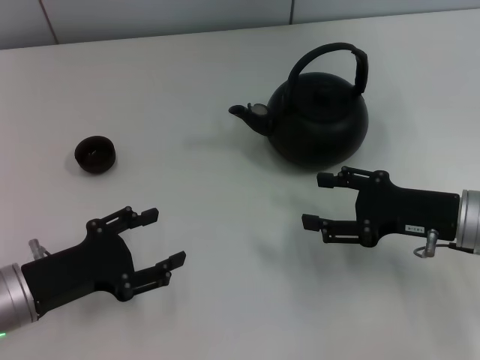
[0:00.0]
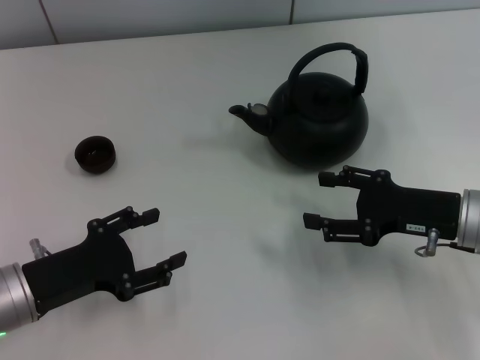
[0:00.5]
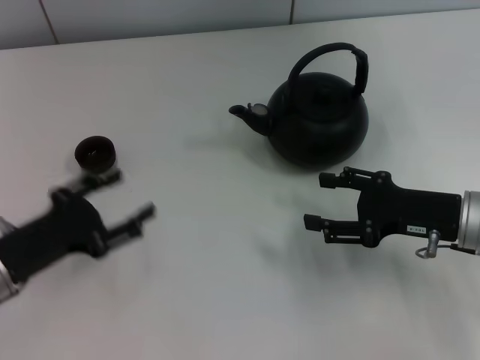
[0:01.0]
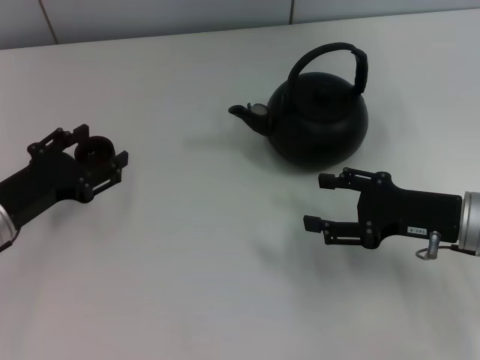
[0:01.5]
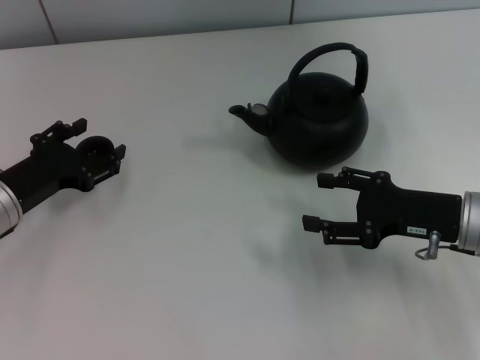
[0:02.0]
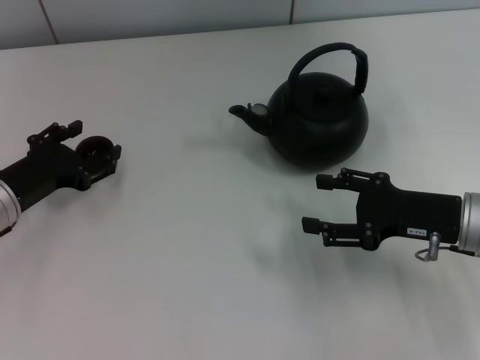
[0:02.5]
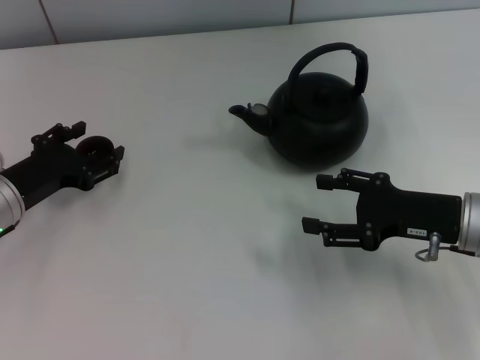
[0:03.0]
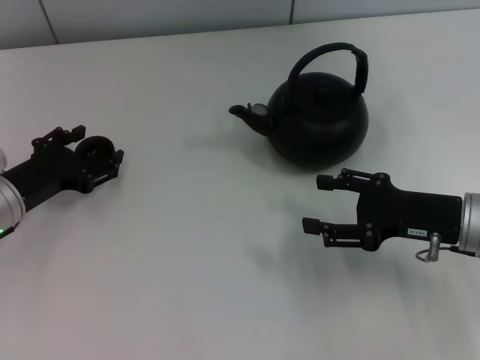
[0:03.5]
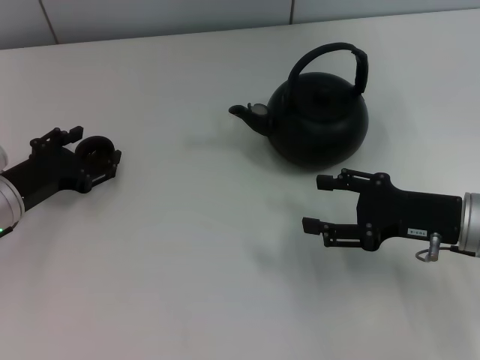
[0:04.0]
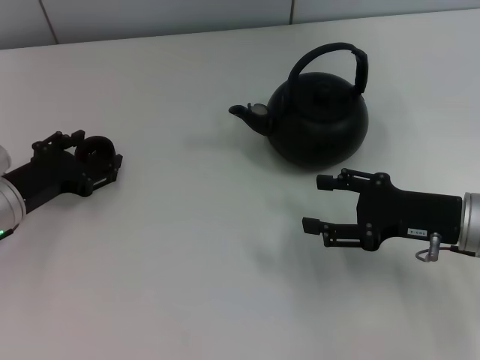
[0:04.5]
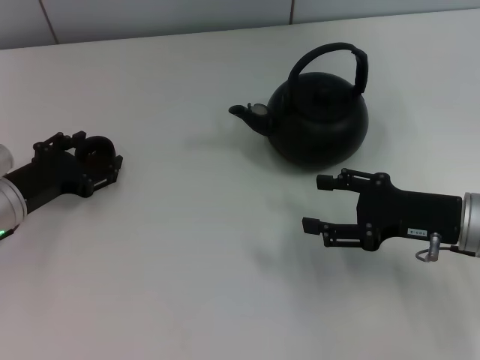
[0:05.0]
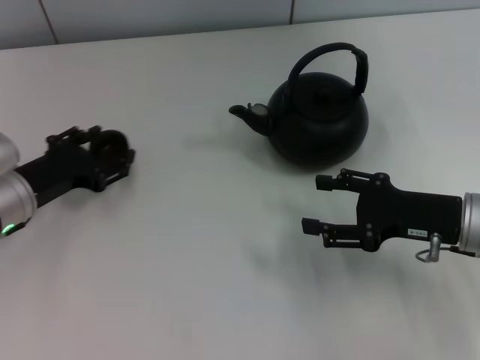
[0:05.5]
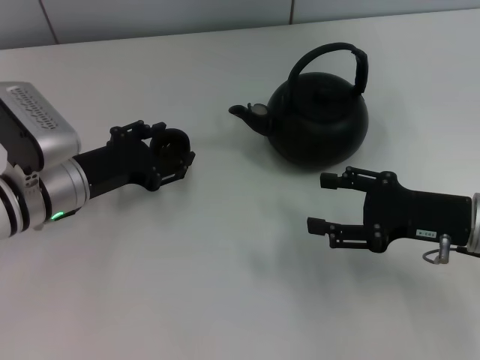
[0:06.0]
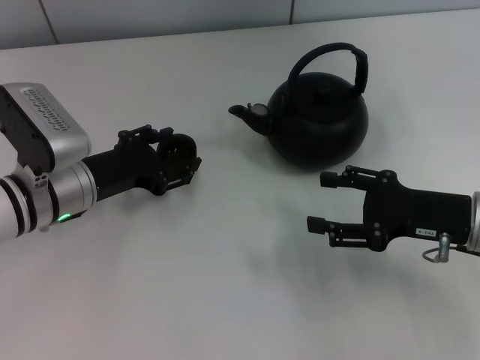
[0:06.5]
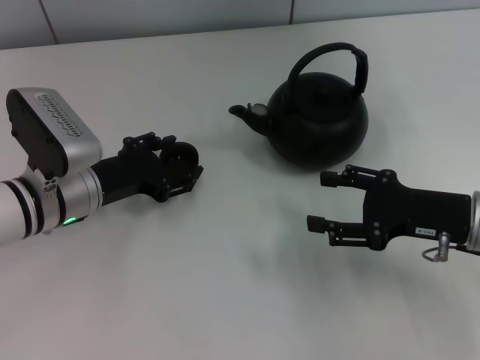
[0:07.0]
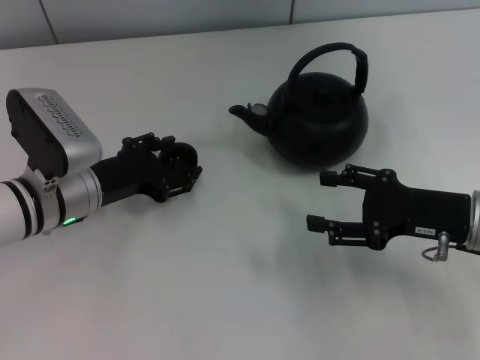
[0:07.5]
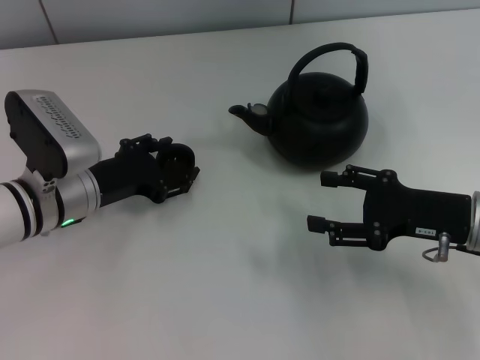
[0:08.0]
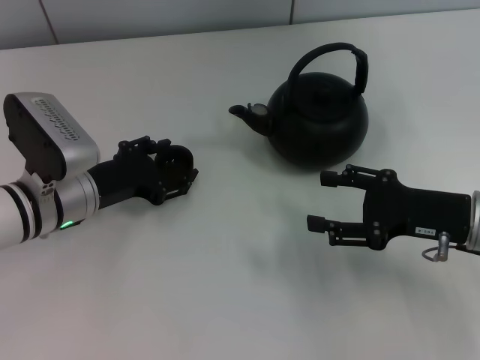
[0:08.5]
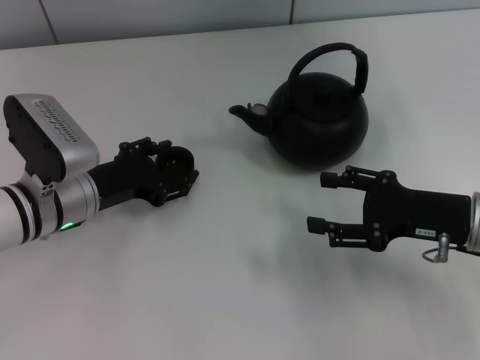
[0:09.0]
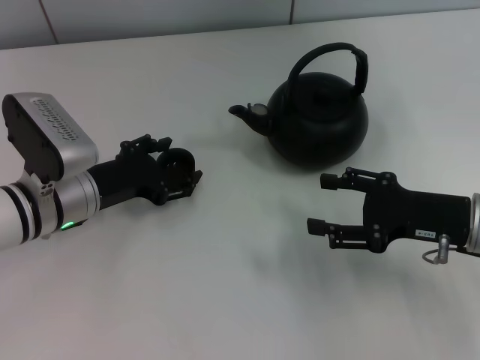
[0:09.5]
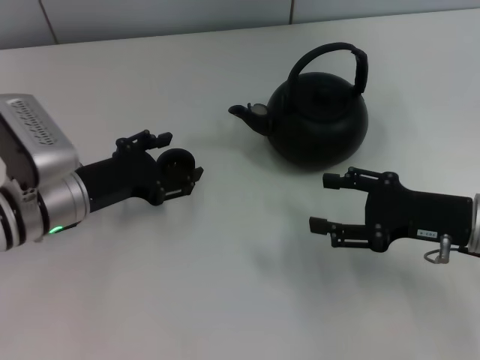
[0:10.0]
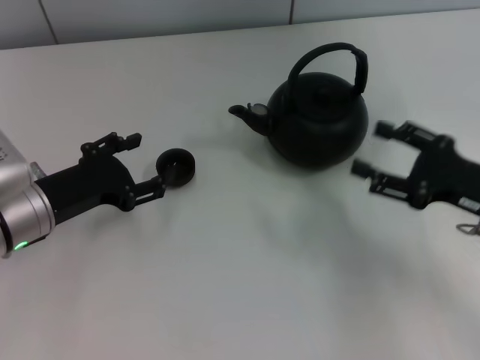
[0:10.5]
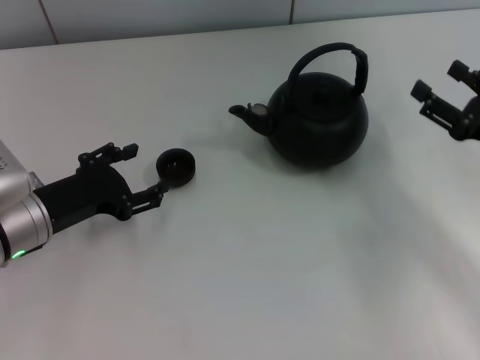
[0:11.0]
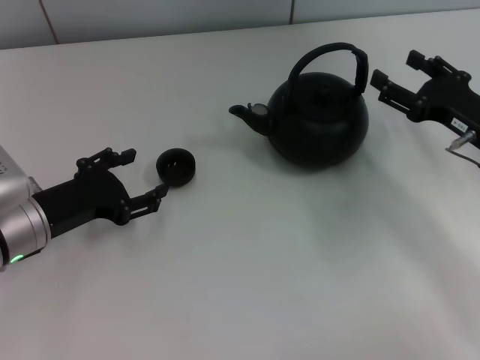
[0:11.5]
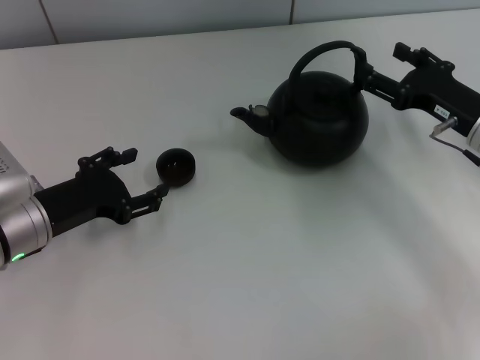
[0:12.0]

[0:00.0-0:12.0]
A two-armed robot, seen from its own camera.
Task of the whole recording: Grasp the handle of the teapot with one hand and pour tea into the teacup.
Step, 0:00.0 to 0:05.5: Pick up the teacup with the left gripper.
Step, 0:06.0 to 0:10.0: Place the teacup in the center of view with the left gripper.
0:00.0 to 0:02.0: The left gripper heads forward, covering approximately 10 cm.
0:02.0 to 0:04.0: The grippers move only a little.
0:04.0 to 0:06.0: The left gripper shifts some 5 cm to the right.
0:06.0 to 0:08.0: The two grippers keep their place.
0:08.0 to 0:10.0: There are only small adjustments of the grippers.
0:10.0 to 0:12.0: The right gripper moves forward, some 5 cm.

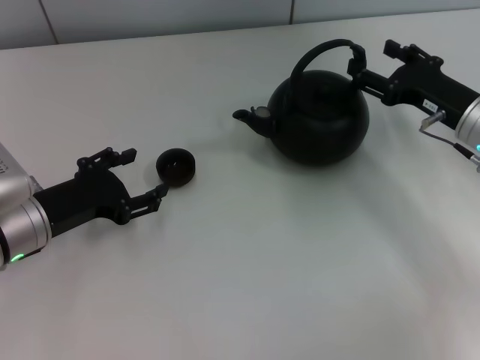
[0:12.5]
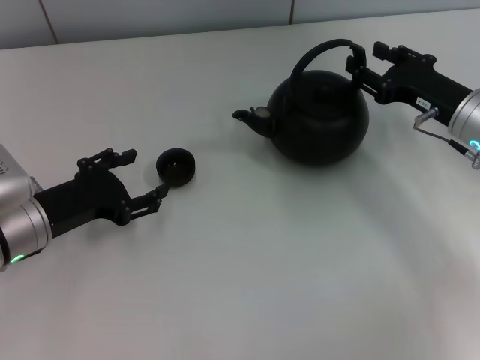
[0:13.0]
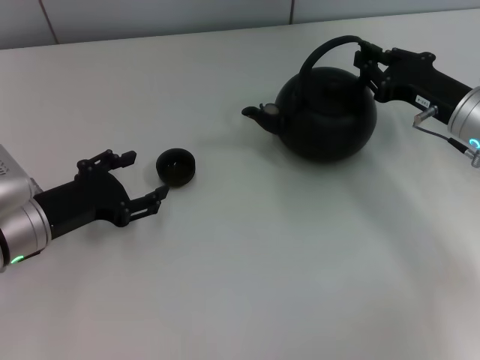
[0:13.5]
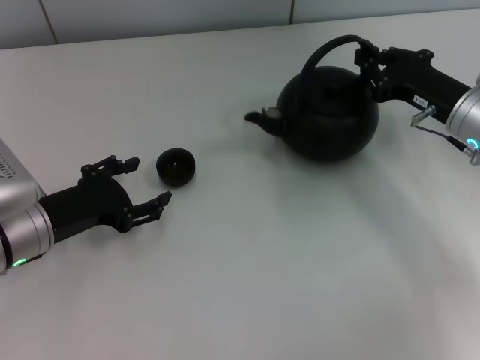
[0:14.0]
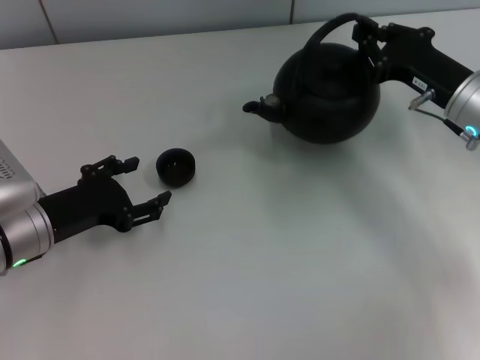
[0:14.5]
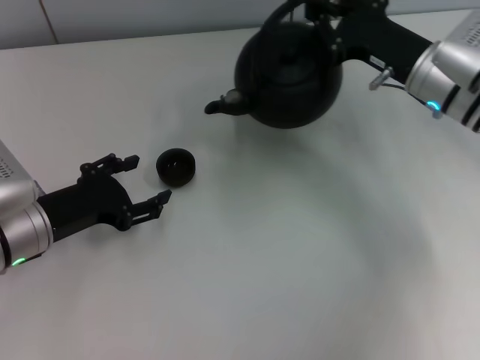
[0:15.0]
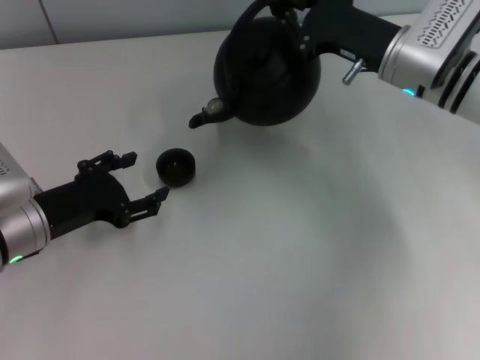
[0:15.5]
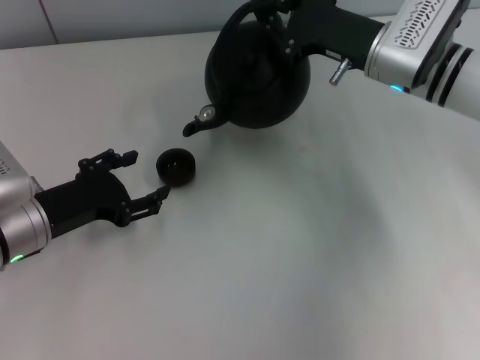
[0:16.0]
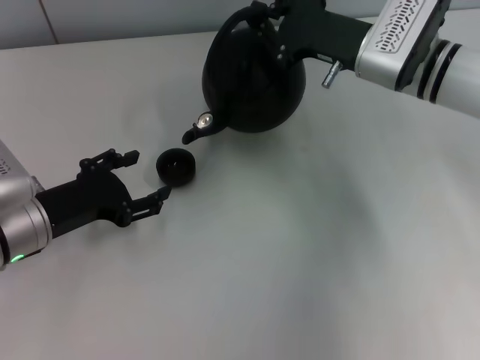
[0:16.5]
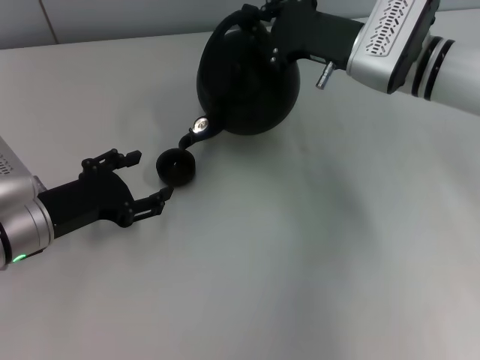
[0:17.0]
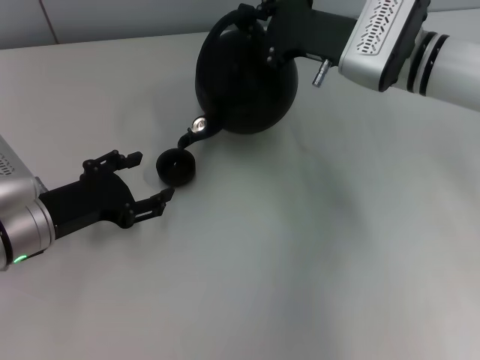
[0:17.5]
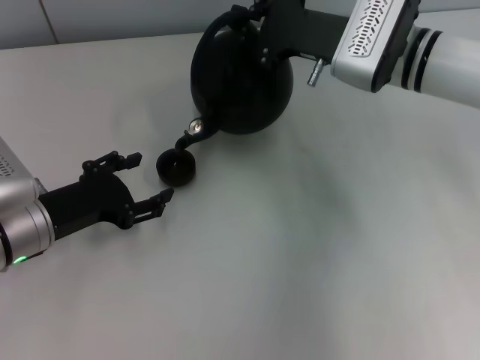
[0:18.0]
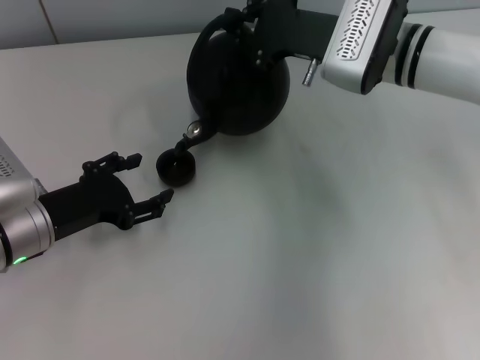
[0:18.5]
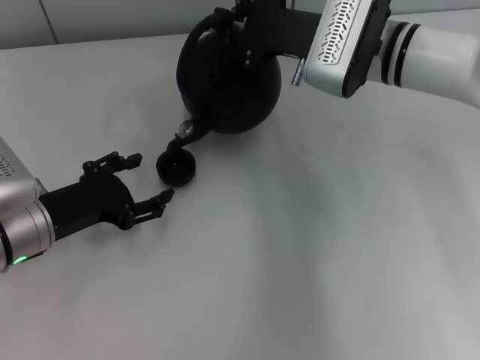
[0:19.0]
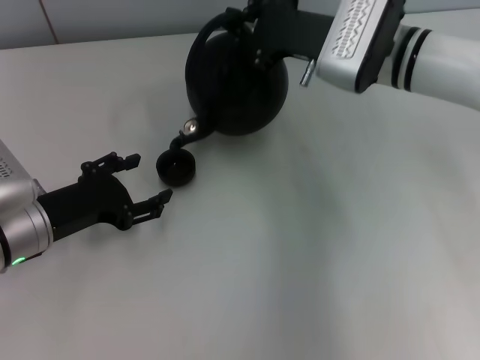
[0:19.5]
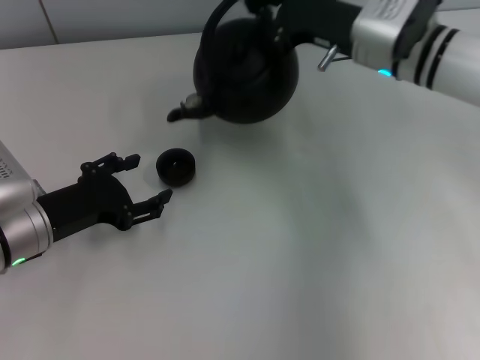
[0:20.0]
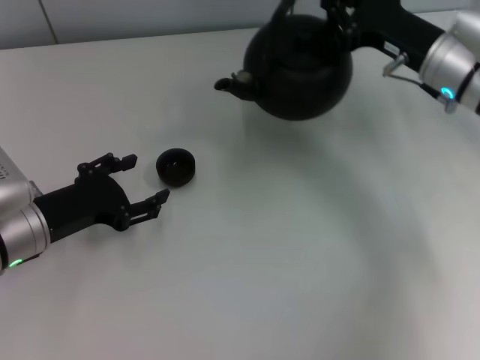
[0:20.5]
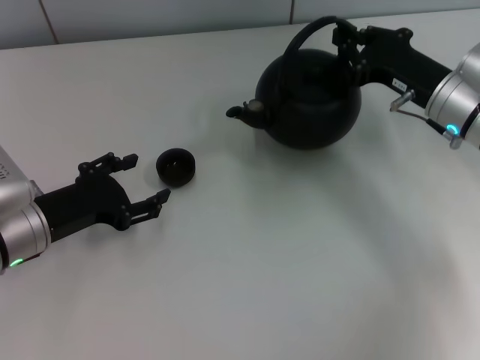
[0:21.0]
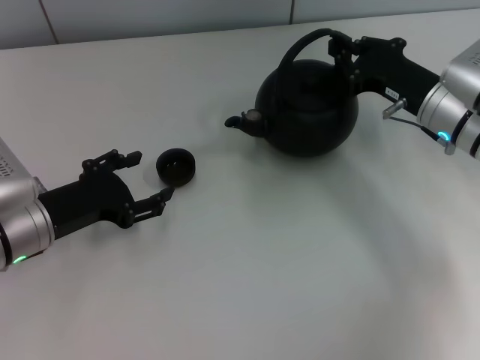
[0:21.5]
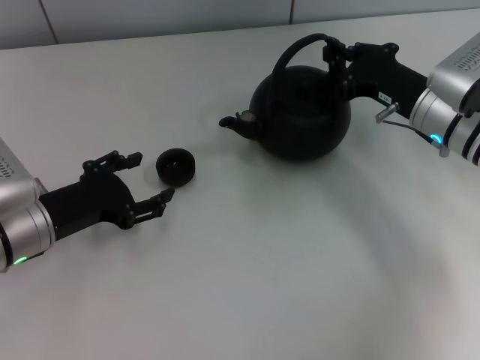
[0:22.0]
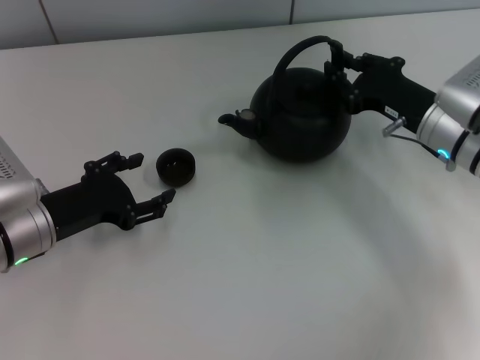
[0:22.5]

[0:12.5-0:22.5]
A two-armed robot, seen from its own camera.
Task of the whole recording: Grasp the handle of the teapot with one hand and pour tea into the teacup.
Step, 0:12.5 to 0:14.5: Pick up the teapot with the right gripper.
0:12.5 to 0:14.5: The right gripper closes up.
0:14.5 to 0:16.5: The right gripper shifts roughly 10 cm to the left and forward.
0:16.5 to 0:18.5: There are only small adjustments of the grippers.
0:18.5 to 0:20.5: The right gripper travels to the right by about 10 cm.
0:20.5 to 0:22.5: The right gripper travels downward by roughly 5 cm.

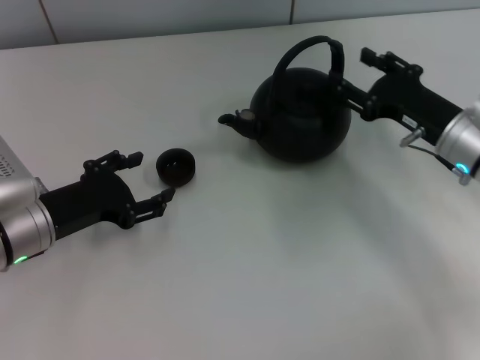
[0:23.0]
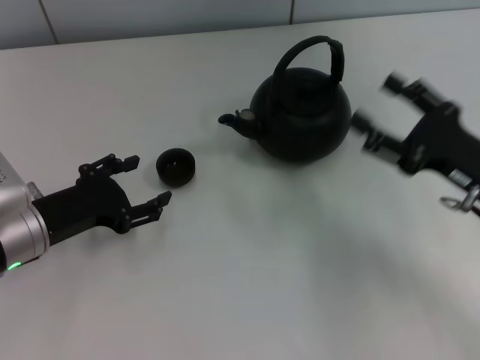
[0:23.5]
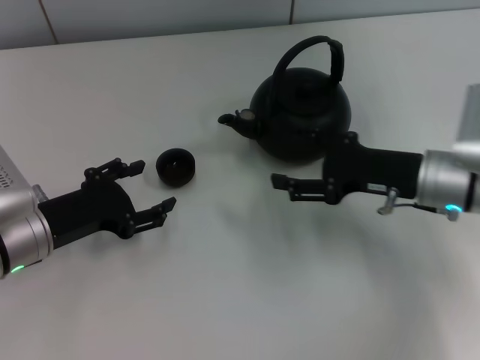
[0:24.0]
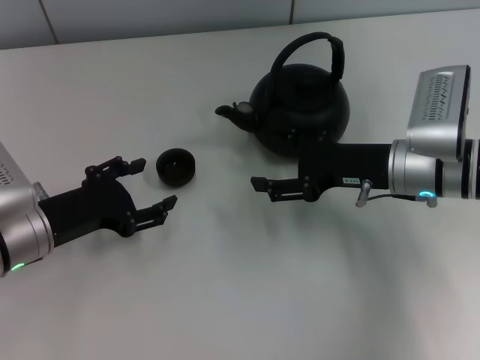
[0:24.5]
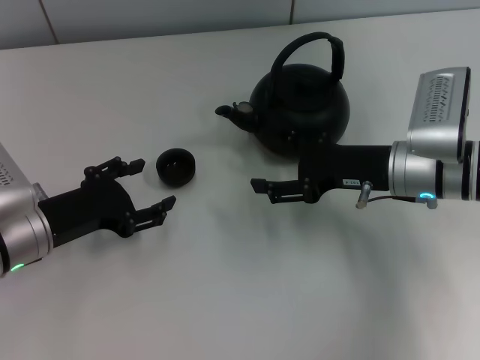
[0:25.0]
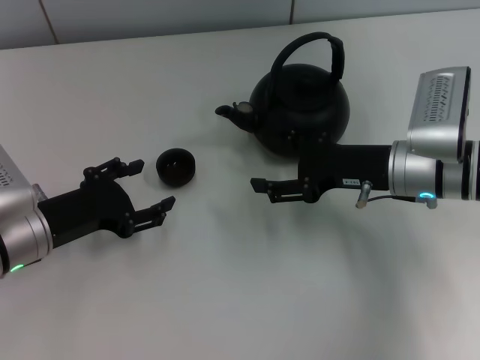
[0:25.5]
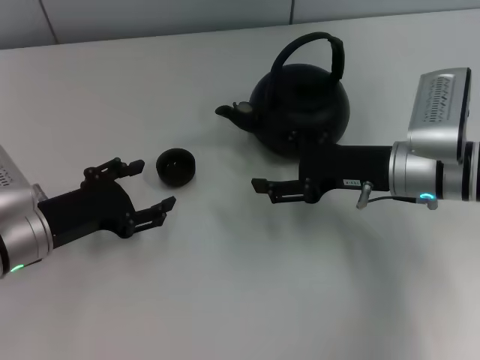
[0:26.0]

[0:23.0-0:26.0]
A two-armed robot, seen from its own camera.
Task of the whole recording: Grasp the handle of the teapot with one hand and pour tea into the teacup.
0:23.0 to 0:24.5: The right gripper shifts roughly 5 cm to the left, and goes backward and returns, approximately 10 cm each way.
0:24.5 to 0:26.0: Neither gripper changes place.
